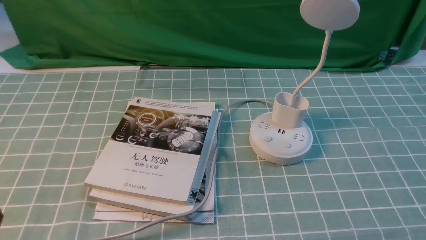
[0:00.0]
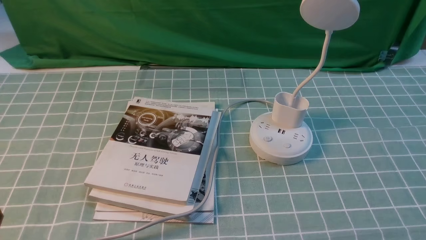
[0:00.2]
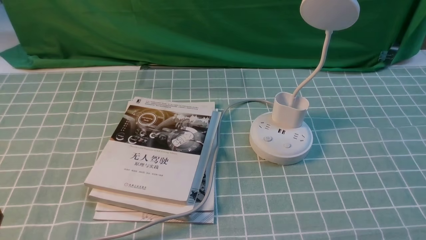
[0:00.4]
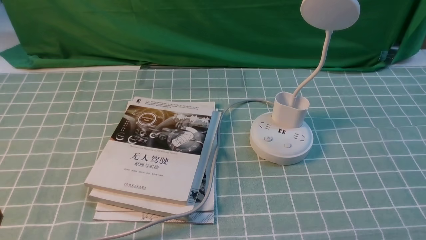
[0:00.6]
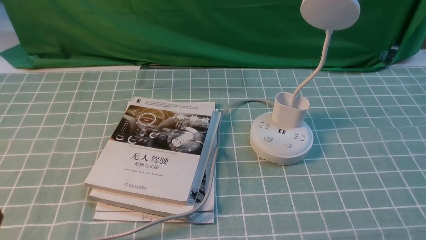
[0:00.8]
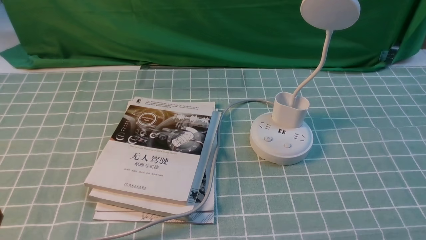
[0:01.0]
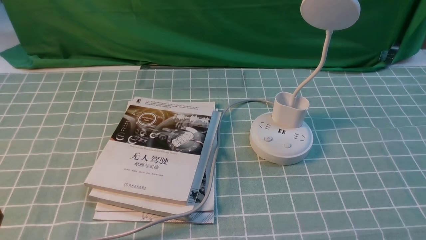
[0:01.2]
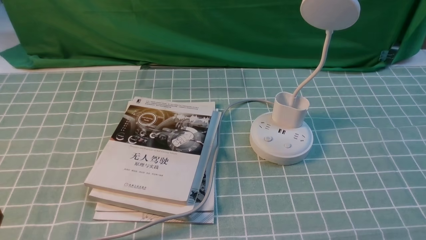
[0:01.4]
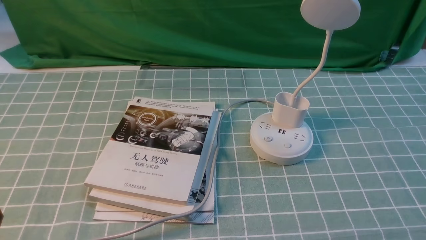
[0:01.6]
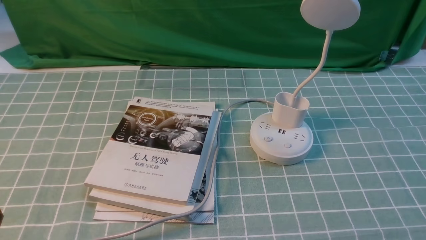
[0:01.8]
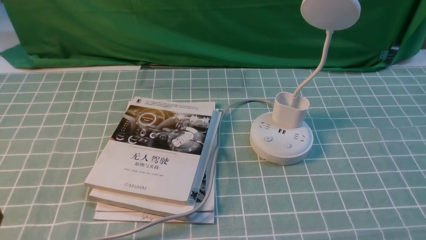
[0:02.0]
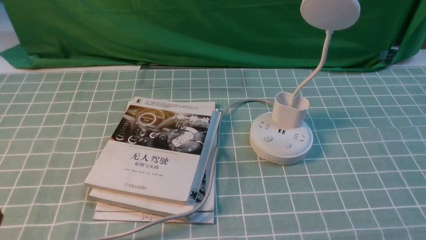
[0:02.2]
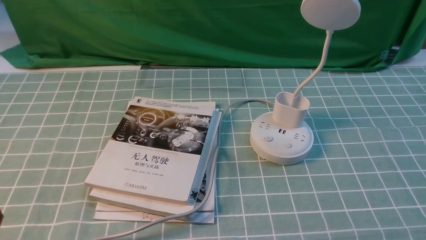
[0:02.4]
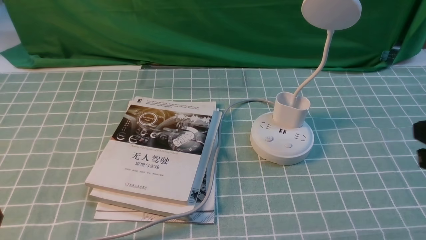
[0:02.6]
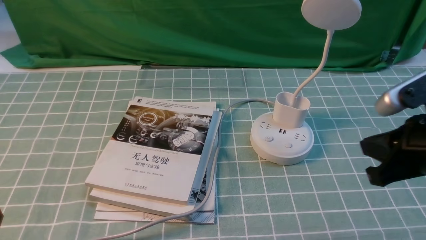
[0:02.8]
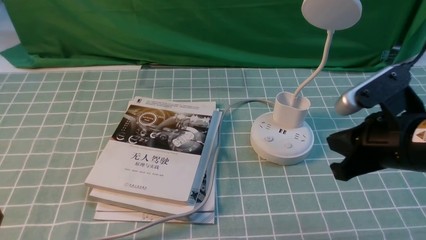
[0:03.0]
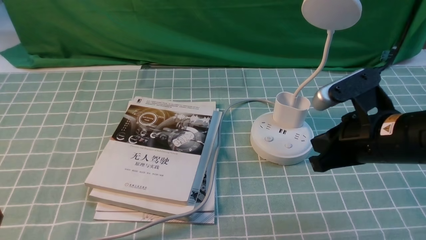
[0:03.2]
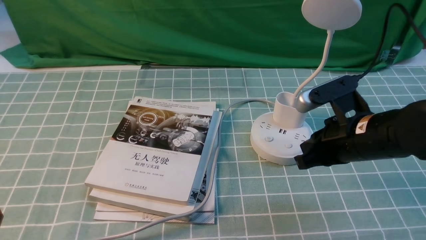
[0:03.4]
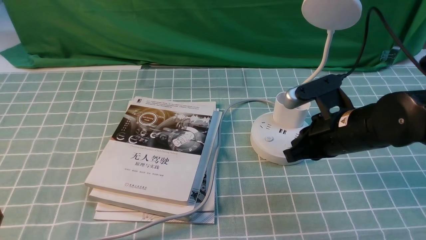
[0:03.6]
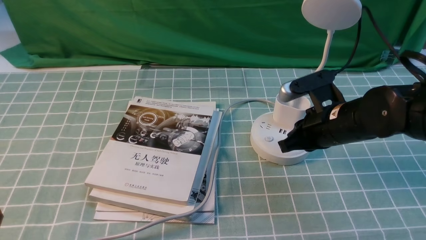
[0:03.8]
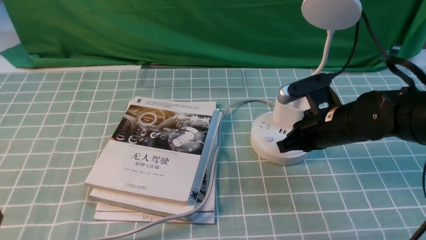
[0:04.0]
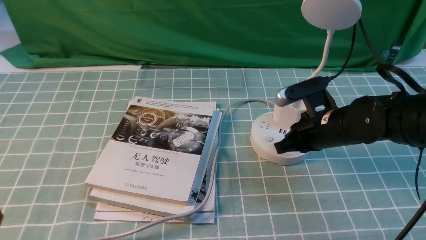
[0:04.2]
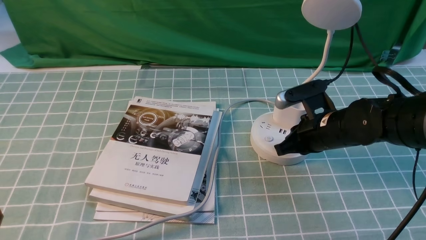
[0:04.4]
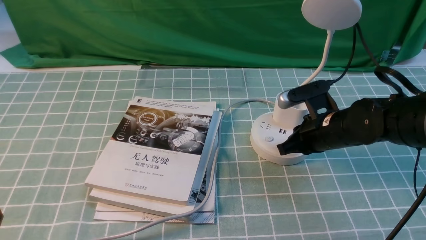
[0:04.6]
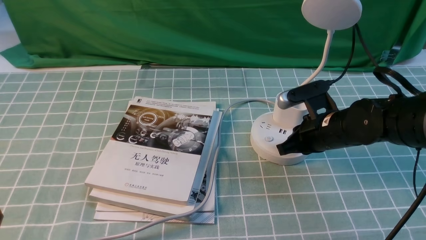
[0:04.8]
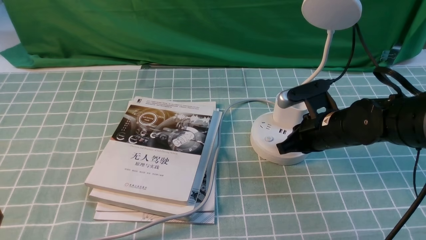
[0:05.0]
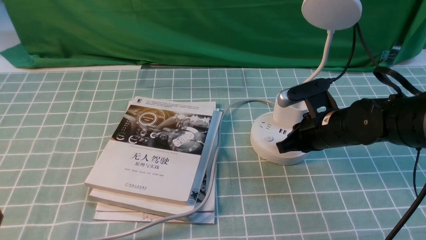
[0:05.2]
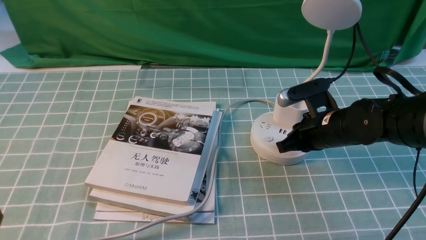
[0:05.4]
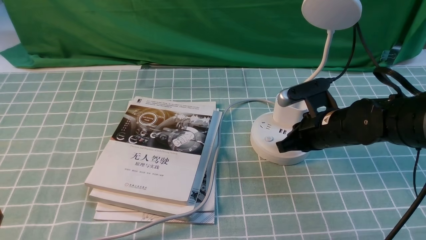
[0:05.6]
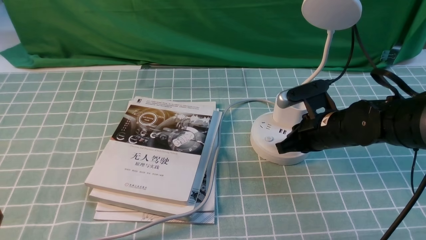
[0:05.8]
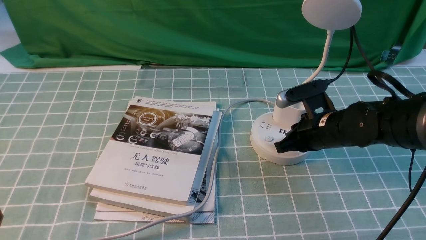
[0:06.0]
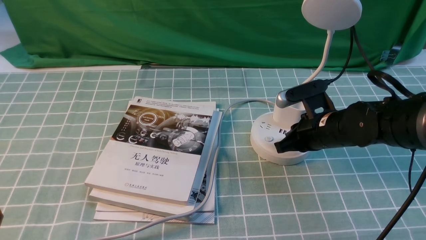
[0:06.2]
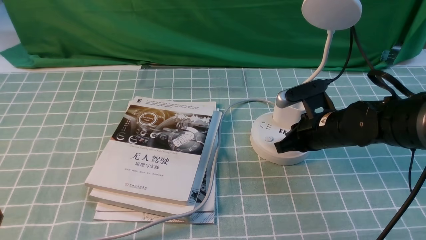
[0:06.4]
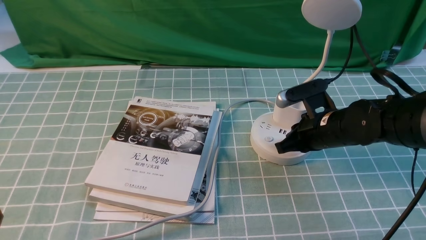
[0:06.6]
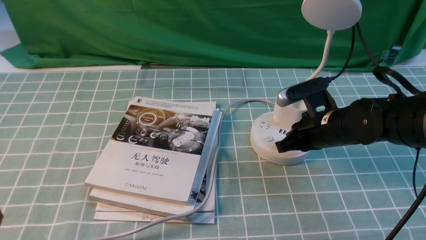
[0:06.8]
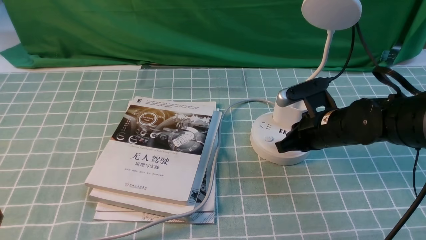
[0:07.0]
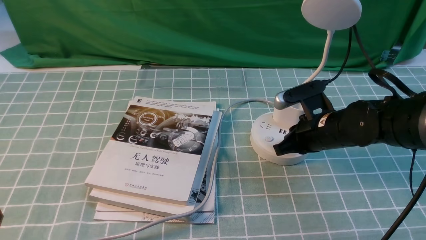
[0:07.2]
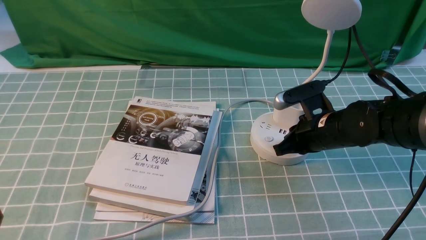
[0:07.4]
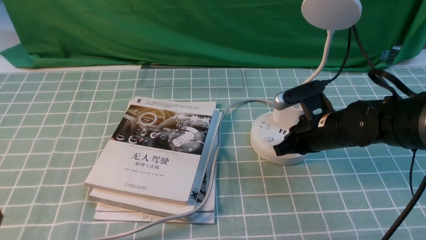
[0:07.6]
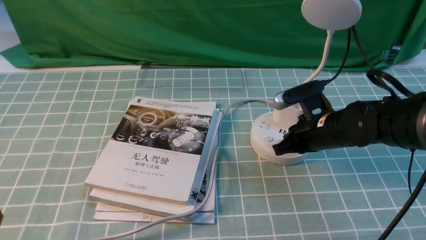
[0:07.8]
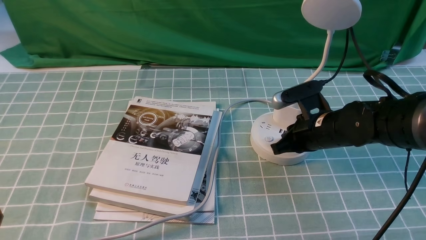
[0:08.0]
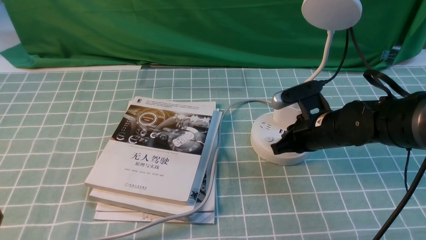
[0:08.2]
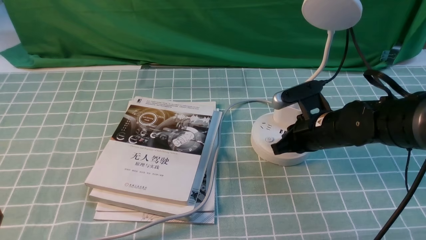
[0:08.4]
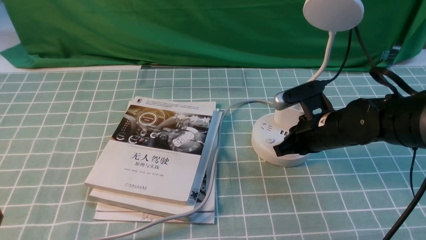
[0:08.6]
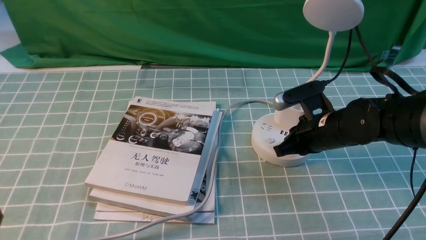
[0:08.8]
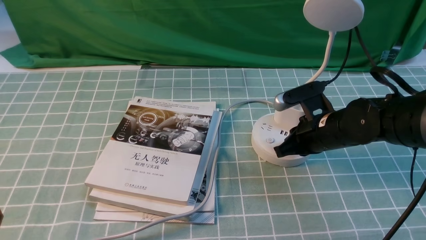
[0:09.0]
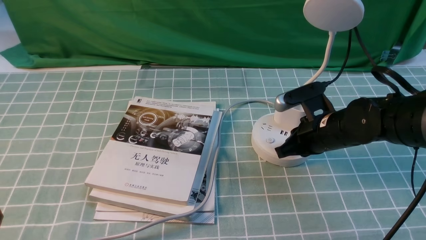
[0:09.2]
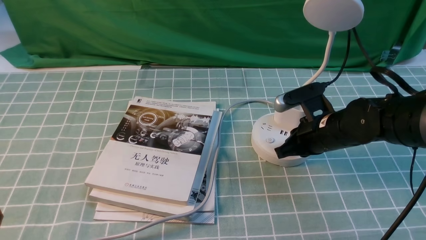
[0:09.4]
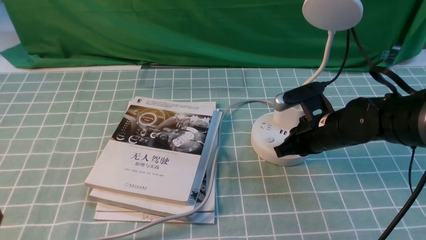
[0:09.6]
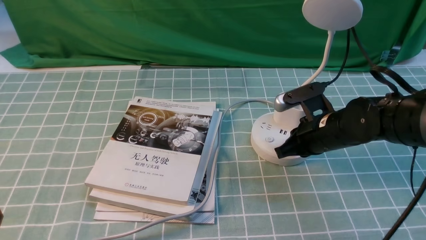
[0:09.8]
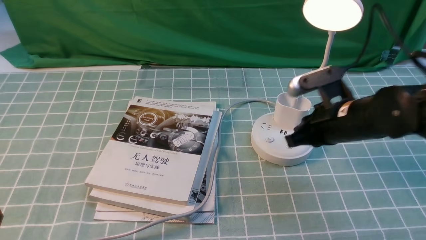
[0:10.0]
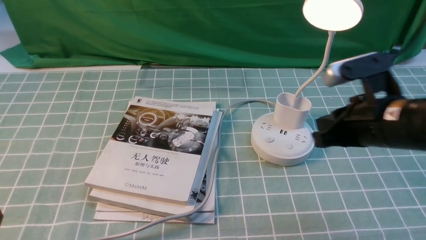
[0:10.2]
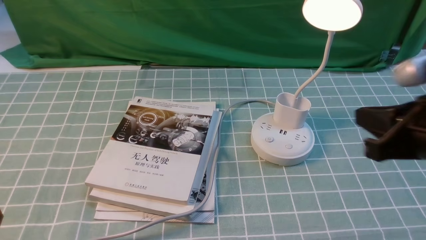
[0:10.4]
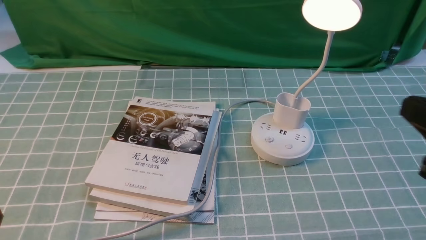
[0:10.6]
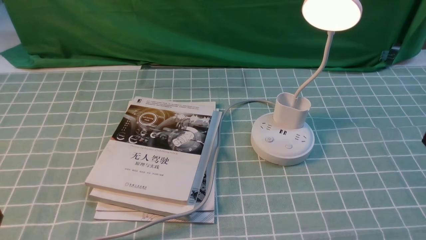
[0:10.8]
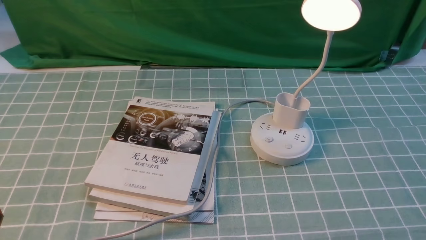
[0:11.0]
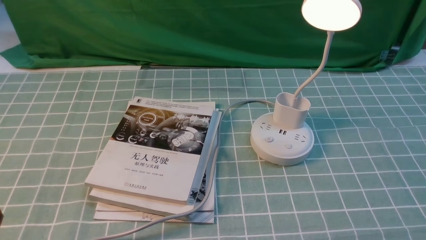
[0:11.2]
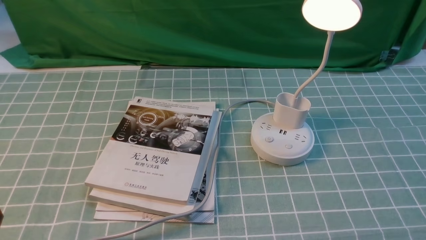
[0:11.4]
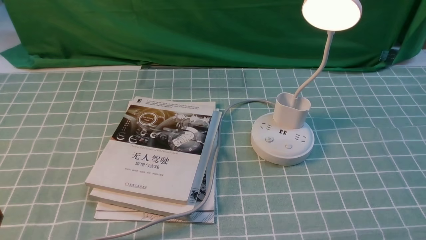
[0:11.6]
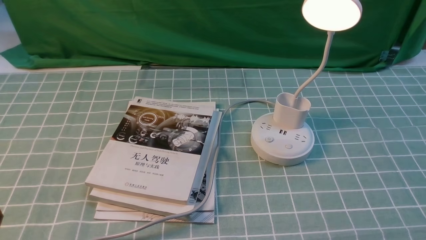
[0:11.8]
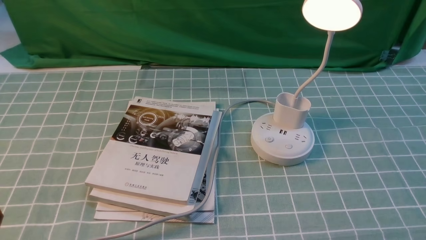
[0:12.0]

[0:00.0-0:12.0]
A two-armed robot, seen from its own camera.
Step, 0:00.0 to 0:10.0: use the right arm to press the button switch on the lamp holder.
0:01.6 to 0:03.0: The right gripper travels forward, upward and to the left by some 20 cm, and closes.
0:03.0 to 0:04.4: The right gripper is displaced forward, downward and to the left by approximately 15 cm.
0:04.4 to 0:06.0: Both grippers stay put.
0:06.0 to 0:09.0: The two grippers keep their place.
0:09.0 to 0:10.4: The right gripper shifts roughly 20 cm upward, backward and to the right.
0:10.4 to 0:12.0: The right gripper is displaced backward, downward and to the right by roughly 20 cm, and opens its fingers.

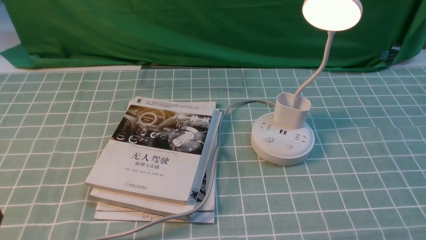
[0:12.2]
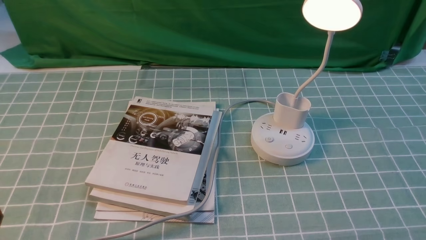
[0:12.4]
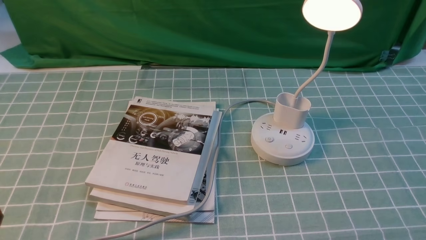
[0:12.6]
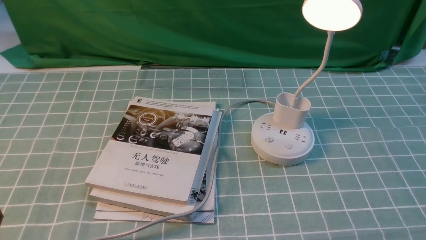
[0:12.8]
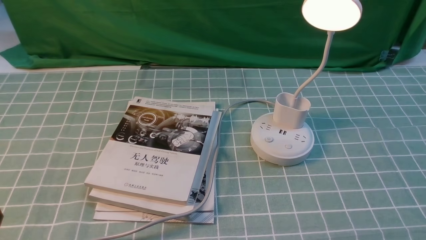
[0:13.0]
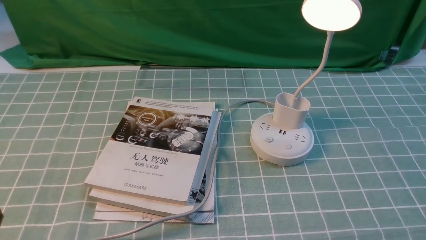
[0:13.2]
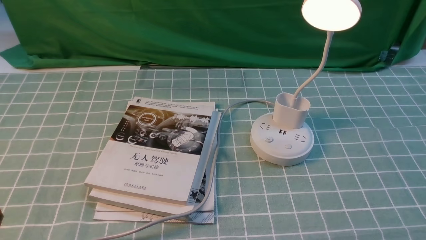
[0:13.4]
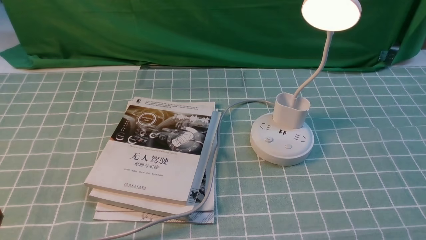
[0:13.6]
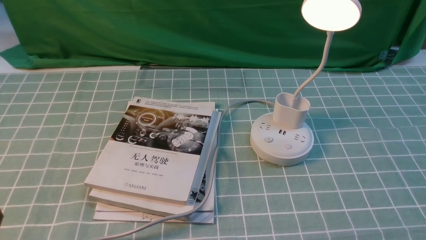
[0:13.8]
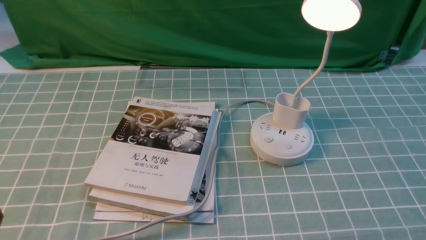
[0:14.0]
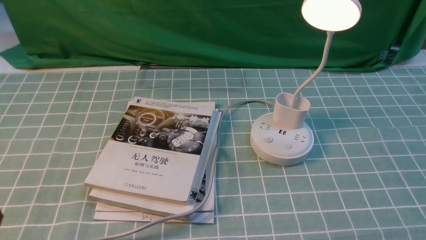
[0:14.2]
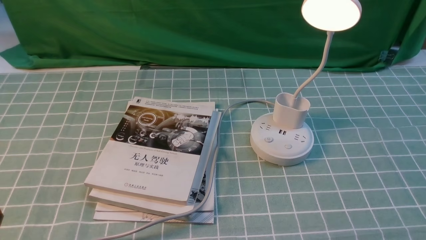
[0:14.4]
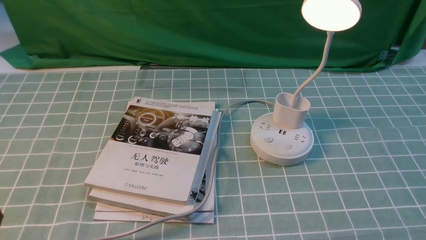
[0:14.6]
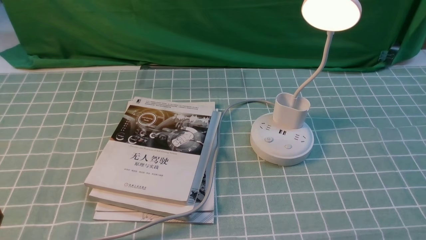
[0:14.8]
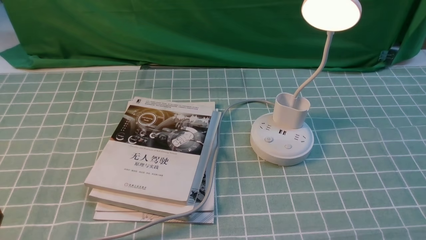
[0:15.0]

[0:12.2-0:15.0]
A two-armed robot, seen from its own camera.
0:12.2 to 0:15.0: Both grippers stay about where they are.
